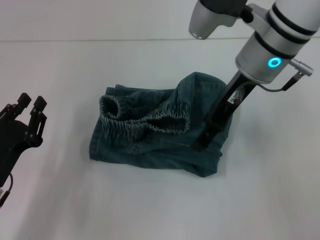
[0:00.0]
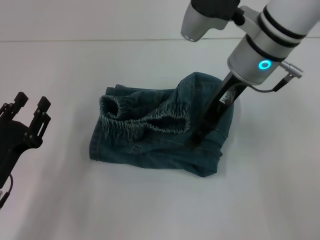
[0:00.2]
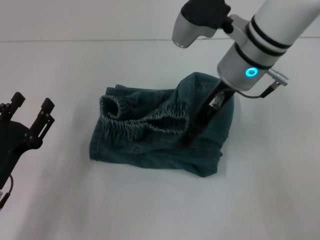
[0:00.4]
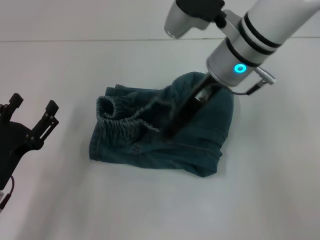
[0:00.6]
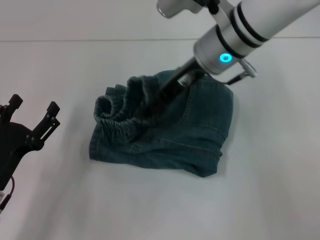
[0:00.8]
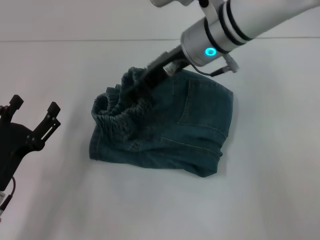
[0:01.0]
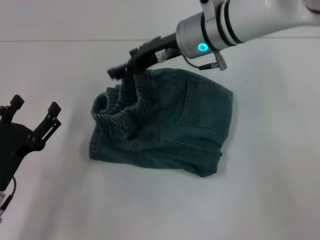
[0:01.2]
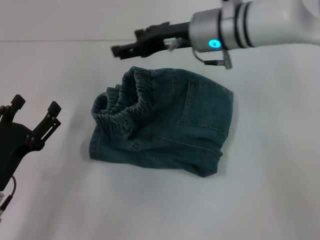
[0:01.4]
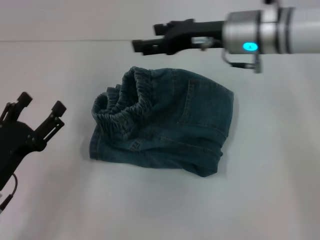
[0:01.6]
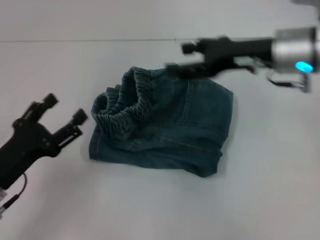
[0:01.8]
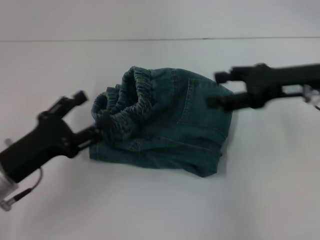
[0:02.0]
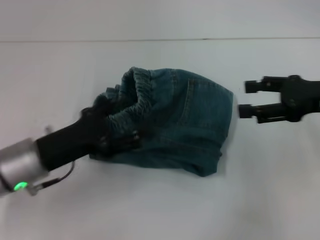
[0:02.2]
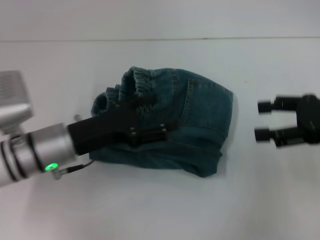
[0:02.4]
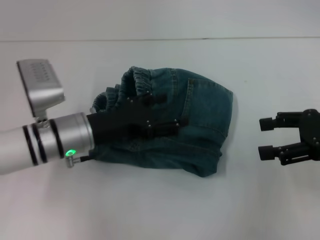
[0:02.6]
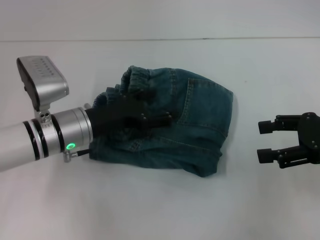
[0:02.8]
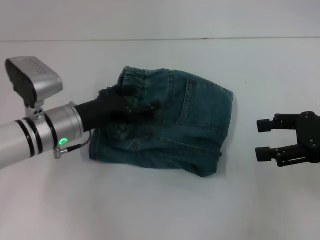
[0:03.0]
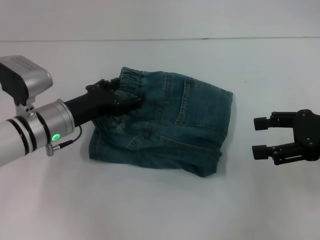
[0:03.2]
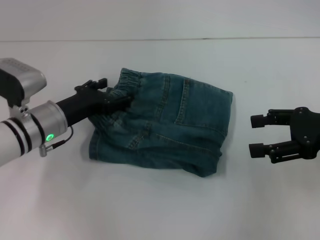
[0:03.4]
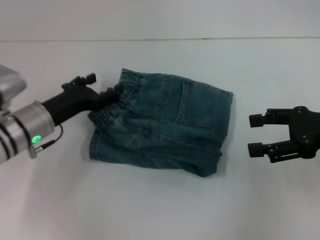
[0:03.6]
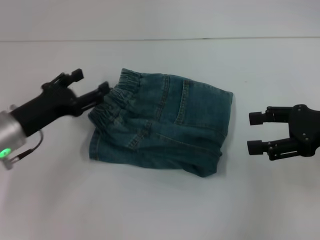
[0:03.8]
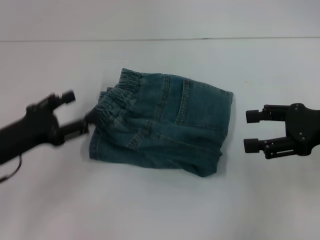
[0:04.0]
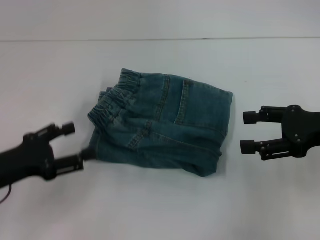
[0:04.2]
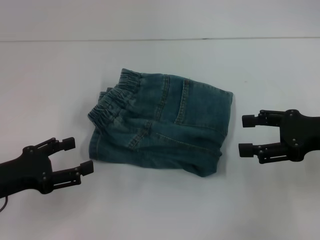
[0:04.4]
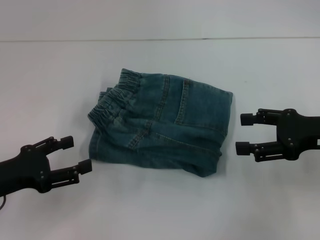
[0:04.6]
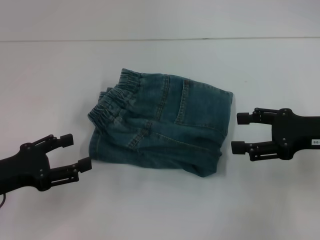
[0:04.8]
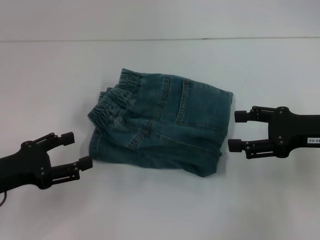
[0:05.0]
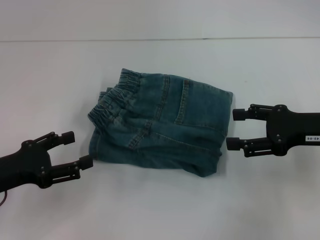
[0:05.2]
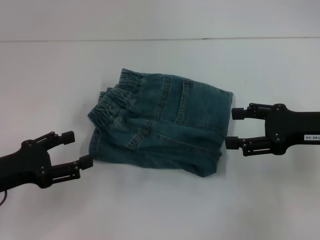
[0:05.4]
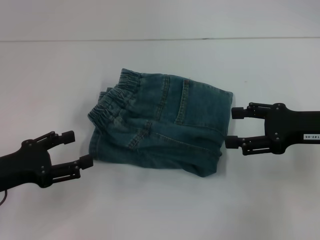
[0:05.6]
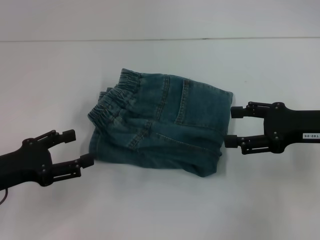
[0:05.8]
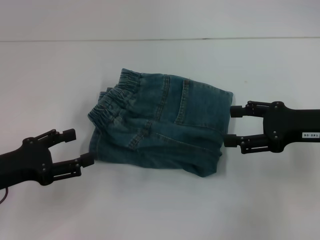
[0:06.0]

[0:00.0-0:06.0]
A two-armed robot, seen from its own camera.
Step, 0:00.0 to 0:01.4: Adjust the pants with your right hand.
0:00.0 to 0:01.6: The left gripper opens.
0:01.6 to 0:03.0: The right gripper moves to the right and backward, about 20 cm. Meanwhile the left gripper shifts some 15 cm forward and to the right.
0:03.0 to 0:04.4: The left gripper travels to the left and backward by some 15 cm.
0:04.4 to 0:06.0: The grippers move only a little.

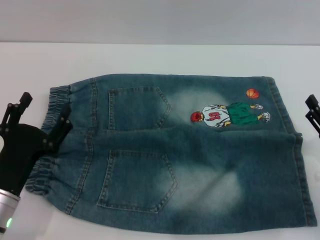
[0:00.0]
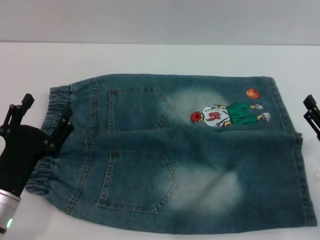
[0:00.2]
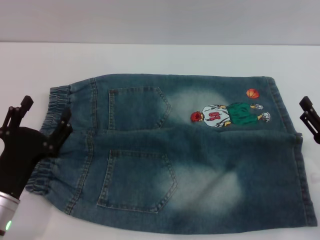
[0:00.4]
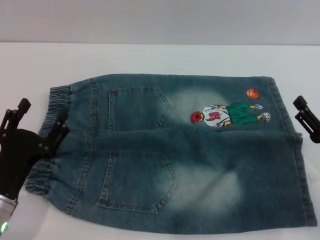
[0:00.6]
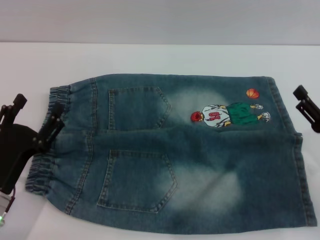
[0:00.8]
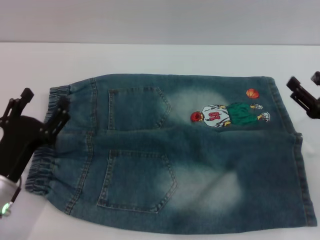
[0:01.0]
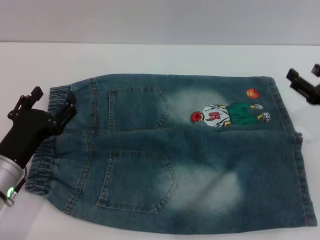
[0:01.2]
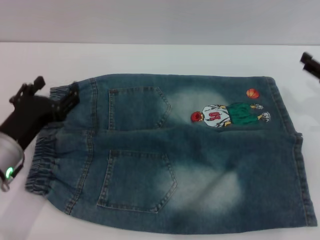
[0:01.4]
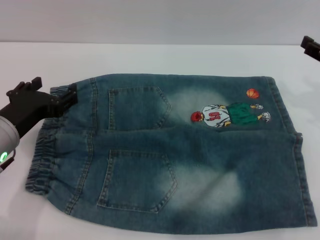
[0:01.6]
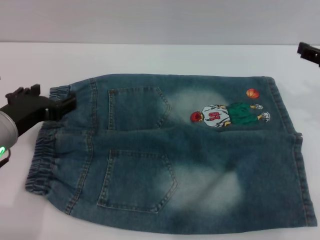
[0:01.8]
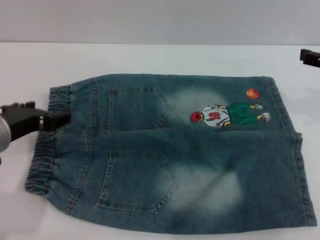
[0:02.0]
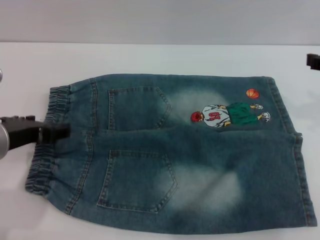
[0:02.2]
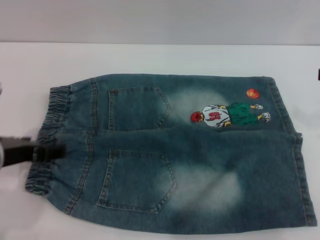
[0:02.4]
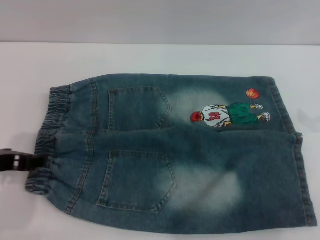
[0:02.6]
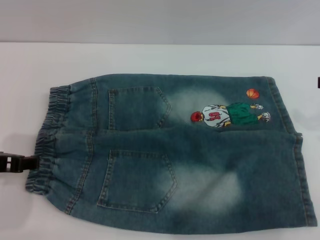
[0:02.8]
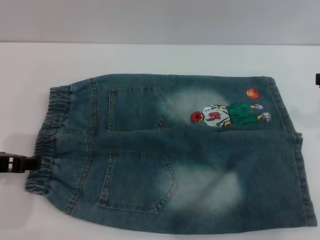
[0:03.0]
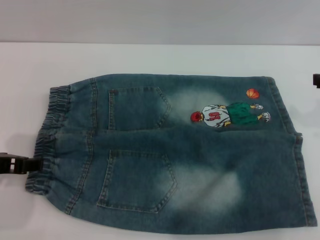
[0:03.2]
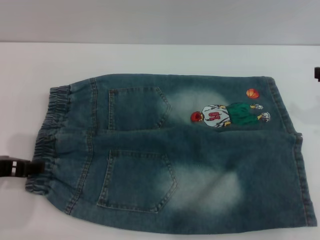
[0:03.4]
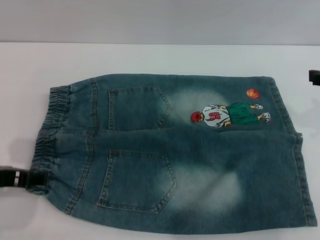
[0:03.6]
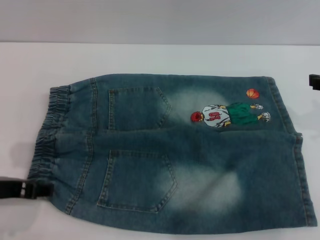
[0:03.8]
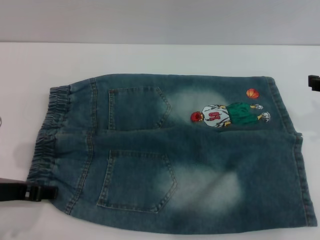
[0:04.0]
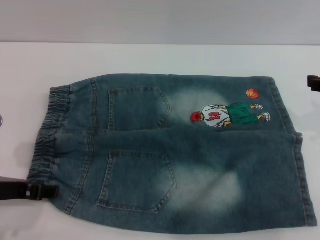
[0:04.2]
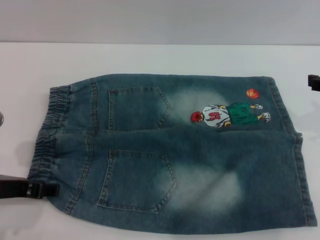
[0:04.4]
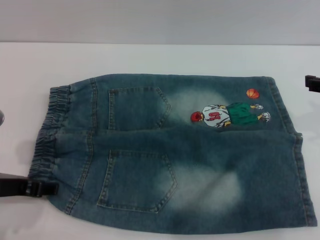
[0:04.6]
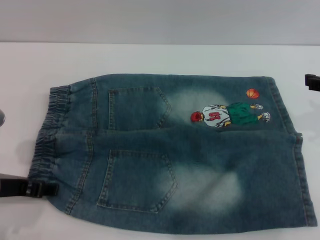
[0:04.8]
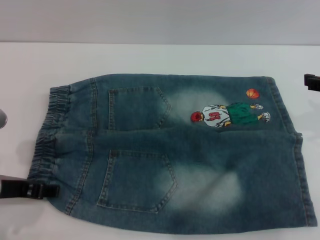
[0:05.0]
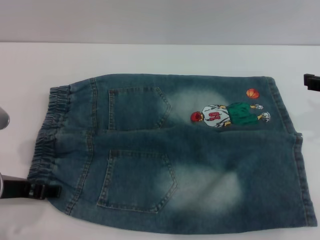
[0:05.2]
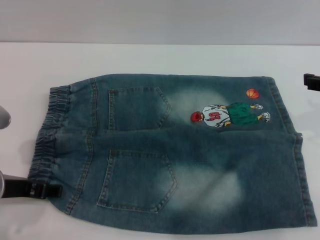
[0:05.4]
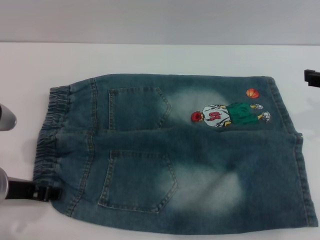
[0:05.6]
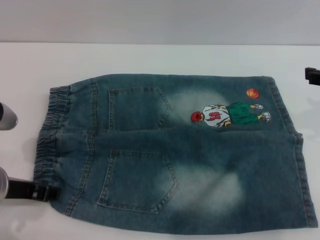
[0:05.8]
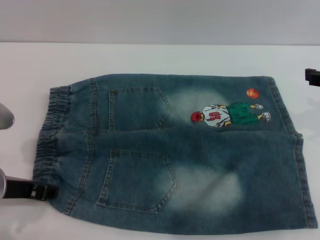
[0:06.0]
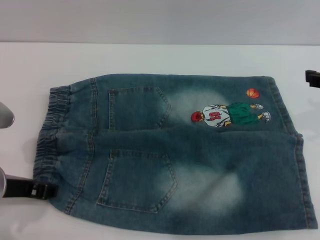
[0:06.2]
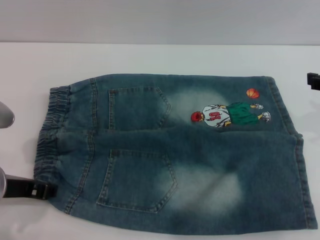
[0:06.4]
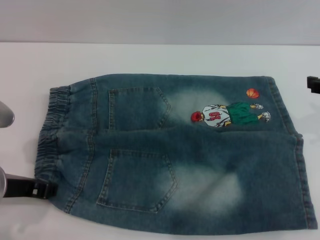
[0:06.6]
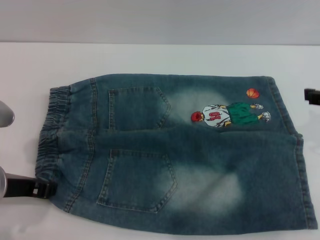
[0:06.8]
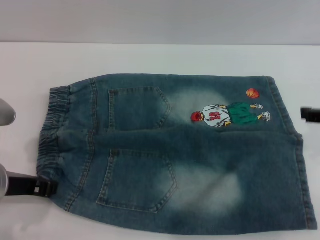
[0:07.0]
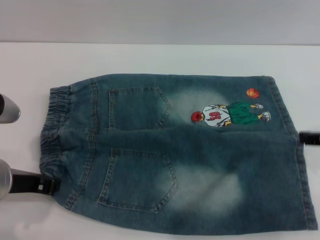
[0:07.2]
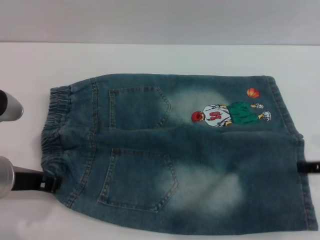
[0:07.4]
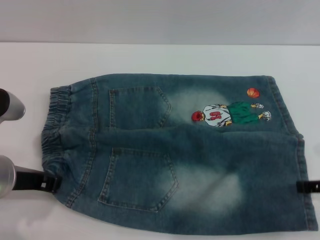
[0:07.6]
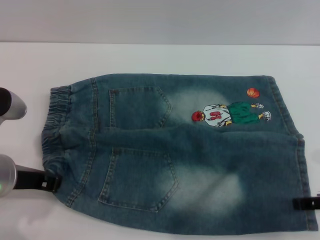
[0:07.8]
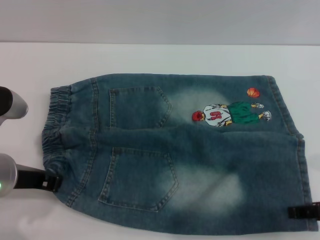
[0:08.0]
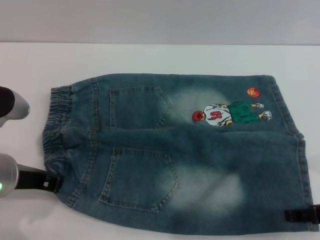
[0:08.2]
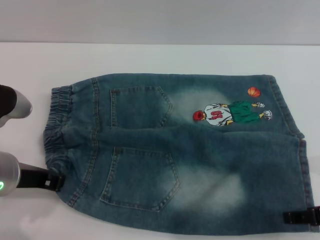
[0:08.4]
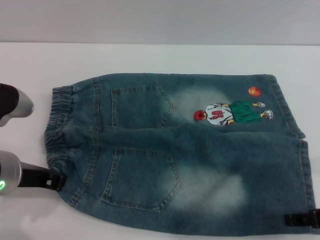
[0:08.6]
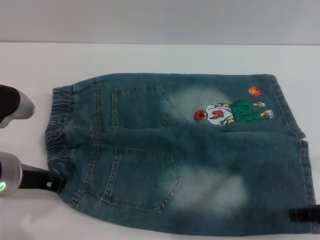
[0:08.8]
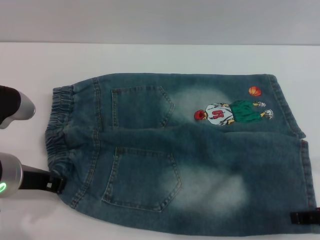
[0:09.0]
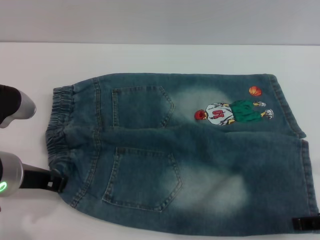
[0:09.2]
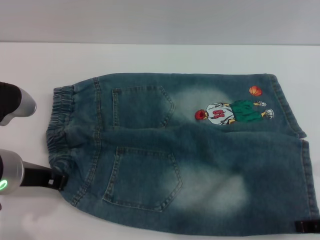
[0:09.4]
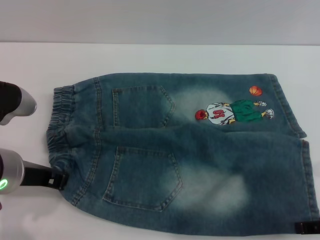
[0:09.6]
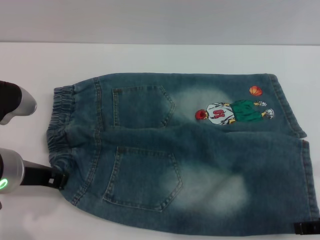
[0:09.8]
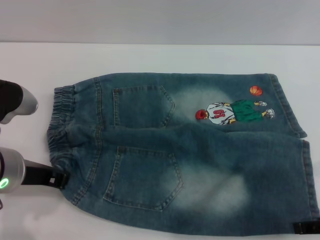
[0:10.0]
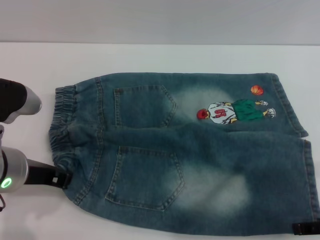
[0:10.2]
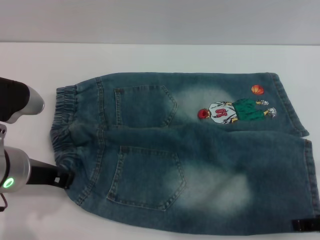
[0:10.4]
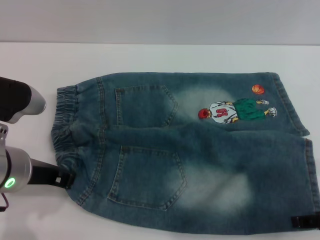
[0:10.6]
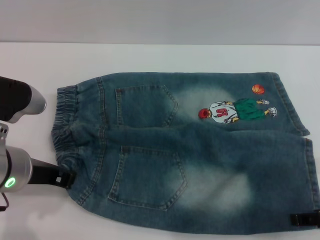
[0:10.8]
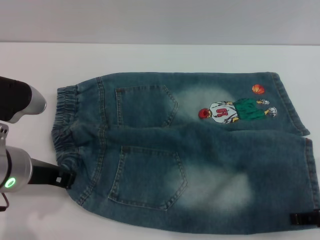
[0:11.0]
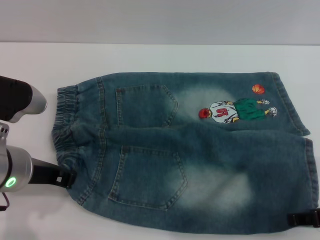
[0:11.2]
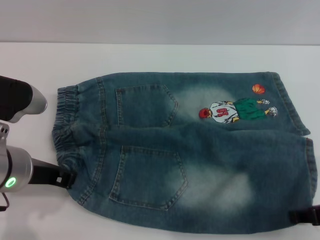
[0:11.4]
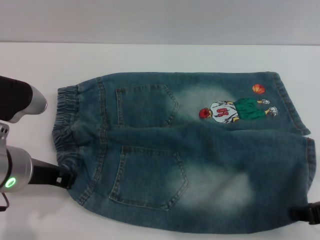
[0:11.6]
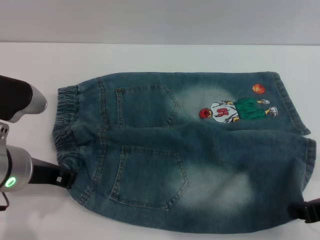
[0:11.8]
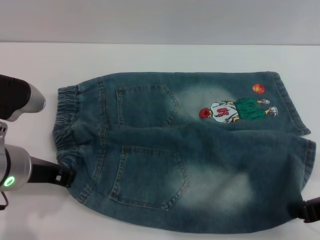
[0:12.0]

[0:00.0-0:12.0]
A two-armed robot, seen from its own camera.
0:00.0 to 0:01.6: Both grippers travel together upward and forward, about 15 cm.
0:01.6 to 0:03.0: The left gripper ends up about 5 cm from where it was.
0:03.0 to 0:06.0: The grippers make only small movements.
0:06.0 to 0:07.6: The left gripper closes its fingers, while the right gripper moves downward and backward, some 10 cm.
0:07.6 to 0:10.4: There are only small adjustments of the grippers.
0:10.4 to 0:12.0: The right gripper closes its fingers.

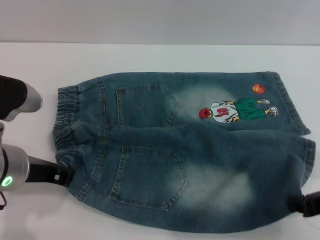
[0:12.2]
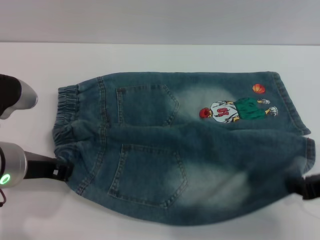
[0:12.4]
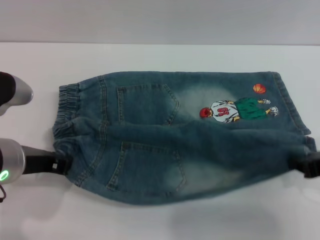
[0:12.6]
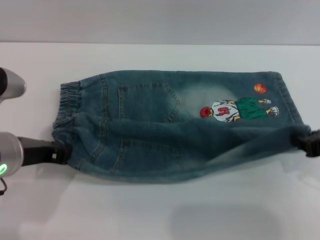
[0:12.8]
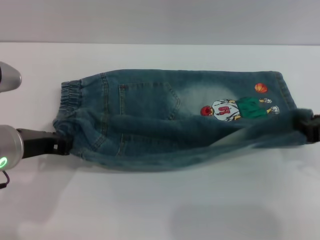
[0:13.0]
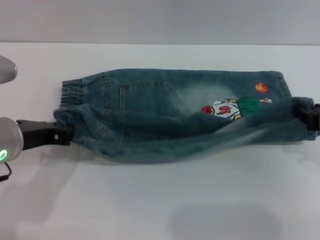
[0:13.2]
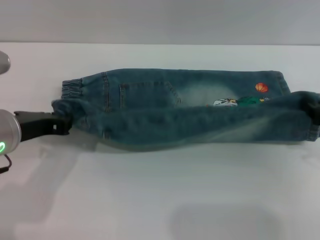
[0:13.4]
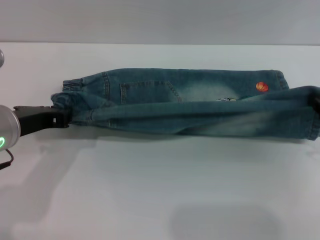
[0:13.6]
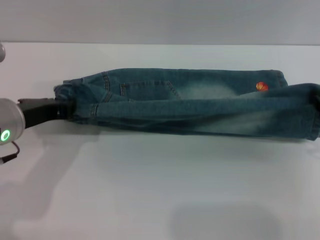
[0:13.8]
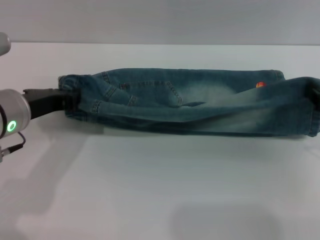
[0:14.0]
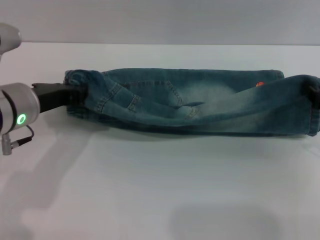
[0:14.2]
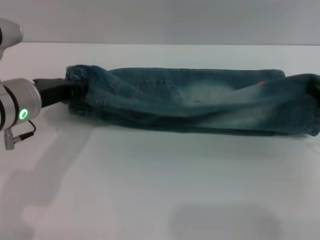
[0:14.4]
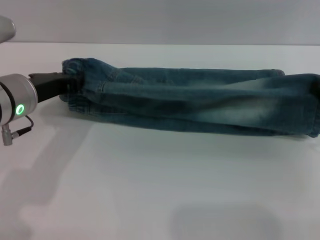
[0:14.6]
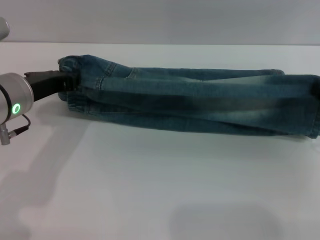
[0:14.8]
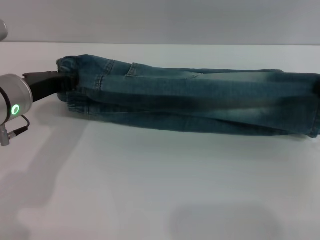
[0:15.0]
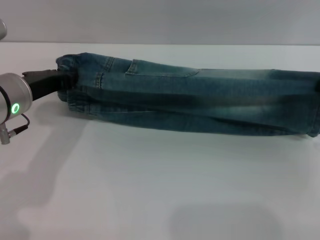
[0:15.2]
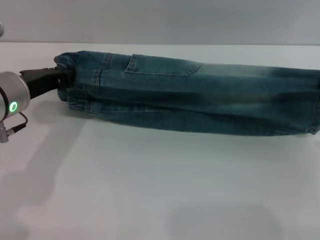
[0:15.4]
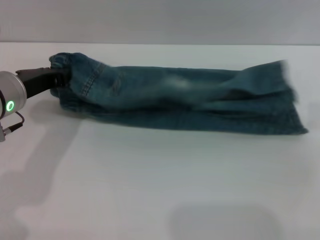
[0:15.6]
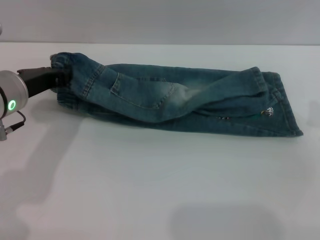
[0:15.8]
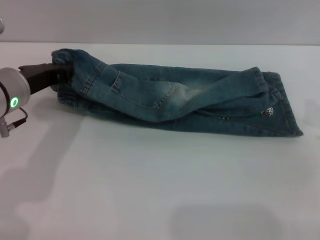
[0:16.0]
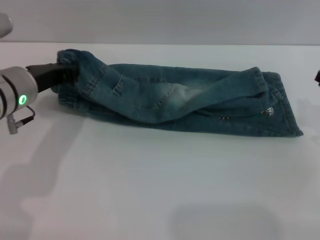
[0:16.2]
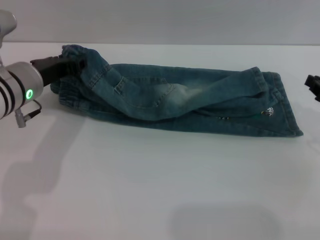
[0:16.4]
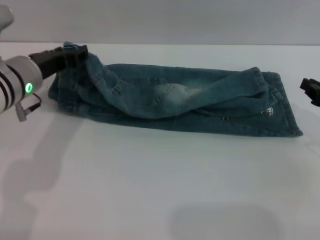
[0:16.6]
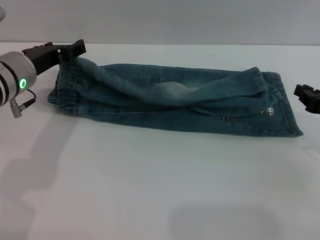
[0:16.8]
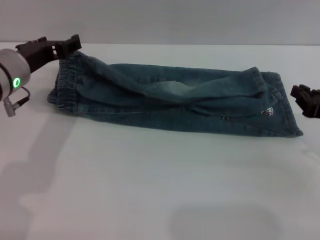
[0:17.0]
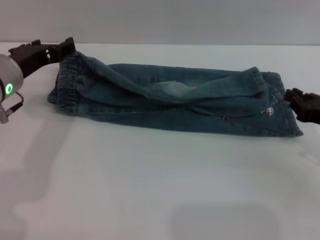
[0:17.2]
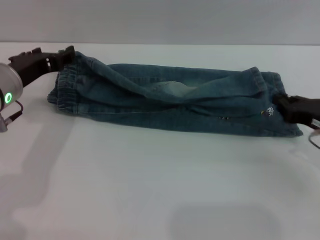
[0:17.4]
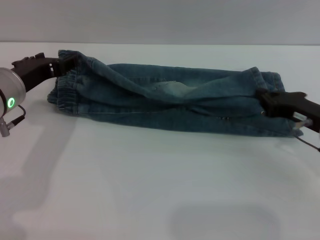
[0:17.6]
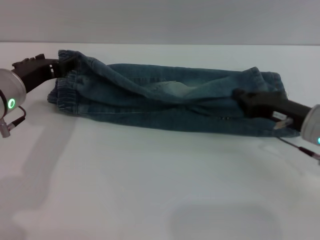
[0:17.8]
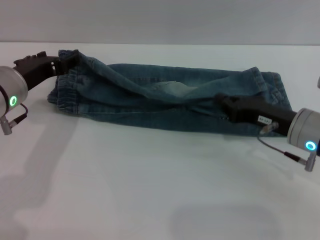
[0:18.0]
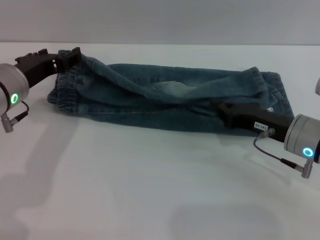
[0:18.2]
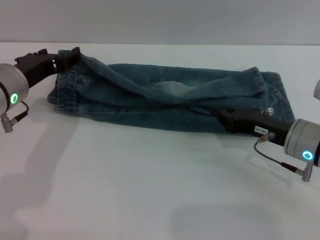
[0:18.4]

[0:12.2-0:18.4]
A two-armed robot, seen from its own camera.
0:12.2 to 0:13.8: The right gripper travels forward by roughly 5 cm.
0:13.8 to 0:15.4: There are only small adjustments of the grippers.
0:15.4 to 0:16.8: The left gripper opens.
0:16.8 to 0:18.4: The right gripper travels to the left by approximately 10 cm.
